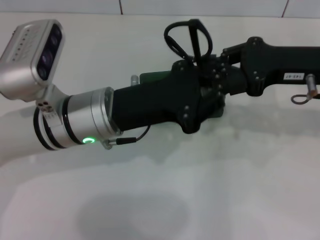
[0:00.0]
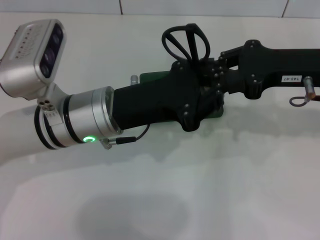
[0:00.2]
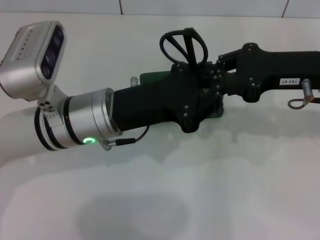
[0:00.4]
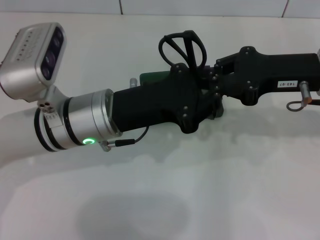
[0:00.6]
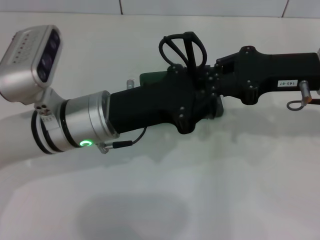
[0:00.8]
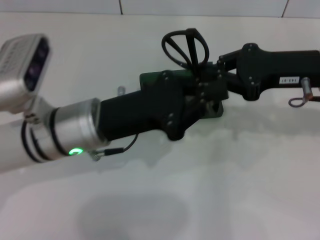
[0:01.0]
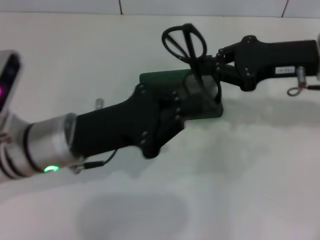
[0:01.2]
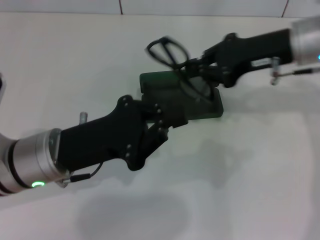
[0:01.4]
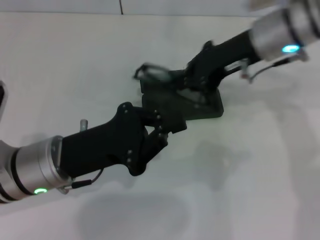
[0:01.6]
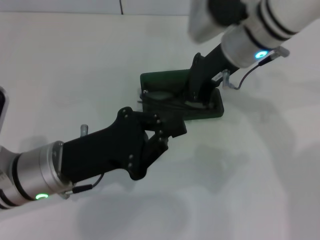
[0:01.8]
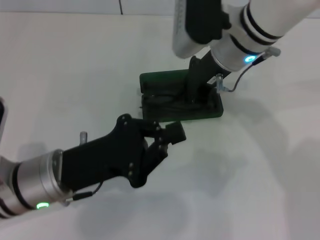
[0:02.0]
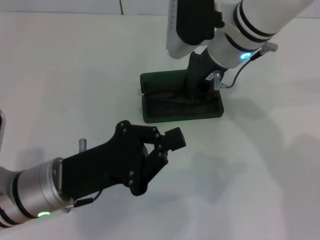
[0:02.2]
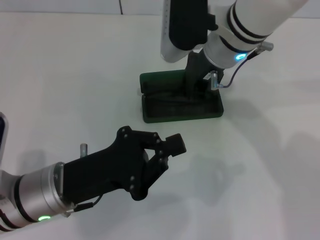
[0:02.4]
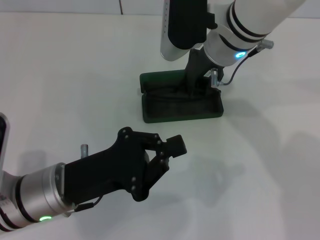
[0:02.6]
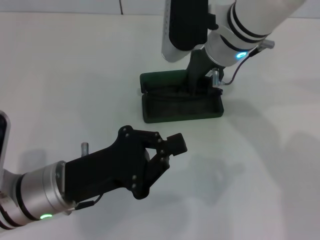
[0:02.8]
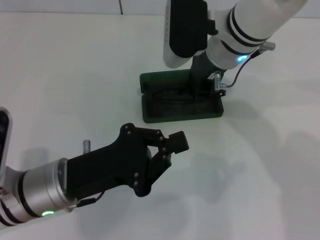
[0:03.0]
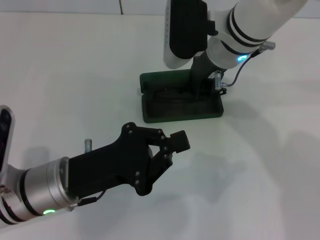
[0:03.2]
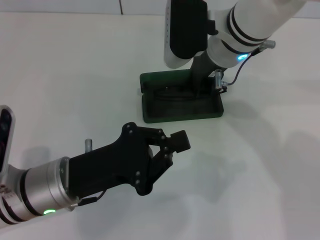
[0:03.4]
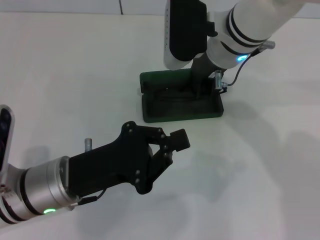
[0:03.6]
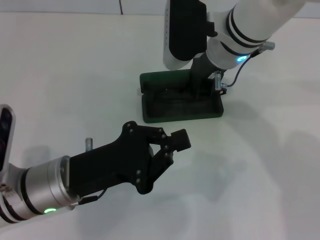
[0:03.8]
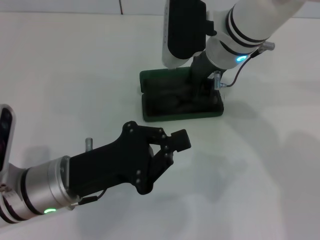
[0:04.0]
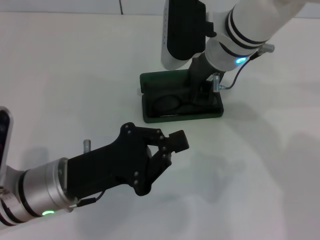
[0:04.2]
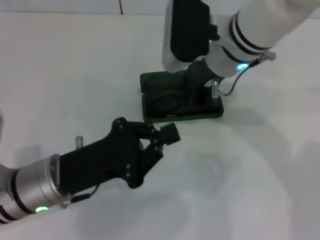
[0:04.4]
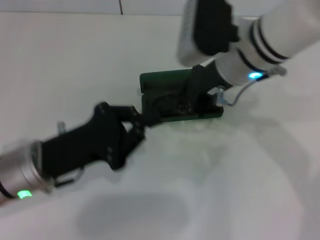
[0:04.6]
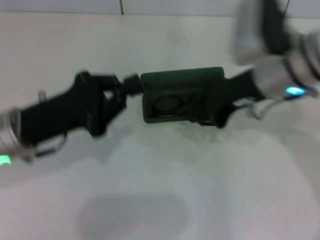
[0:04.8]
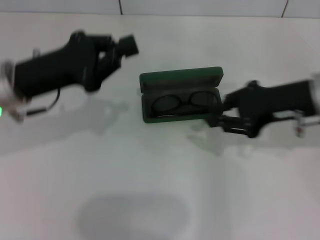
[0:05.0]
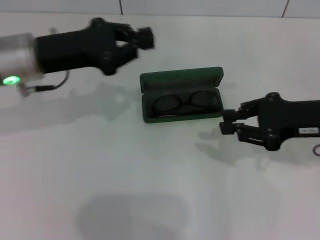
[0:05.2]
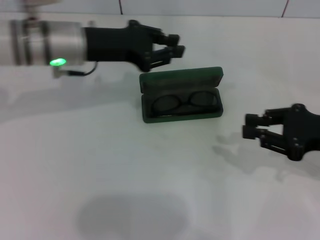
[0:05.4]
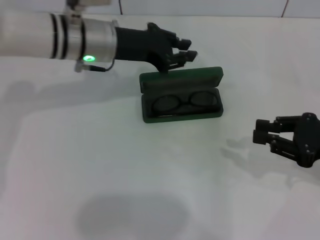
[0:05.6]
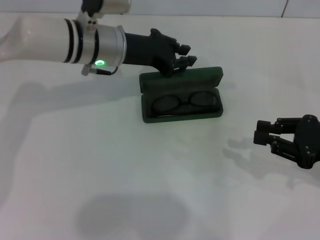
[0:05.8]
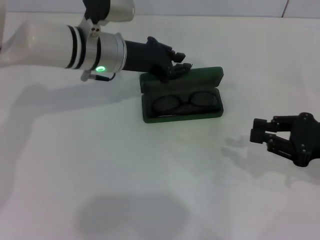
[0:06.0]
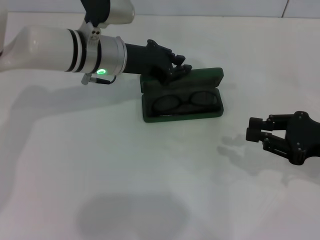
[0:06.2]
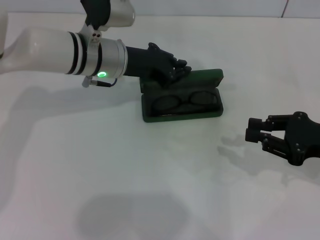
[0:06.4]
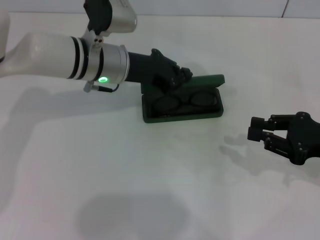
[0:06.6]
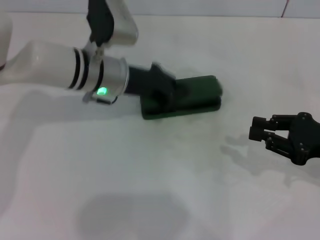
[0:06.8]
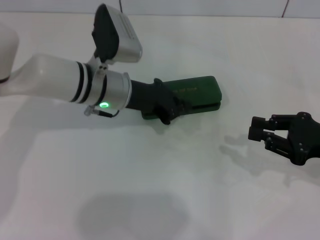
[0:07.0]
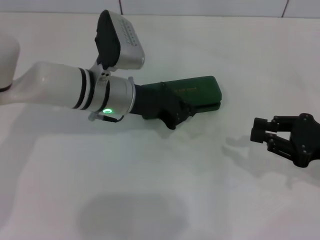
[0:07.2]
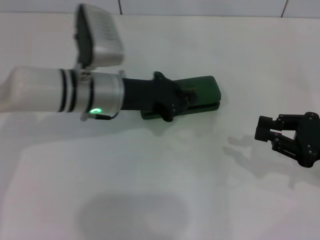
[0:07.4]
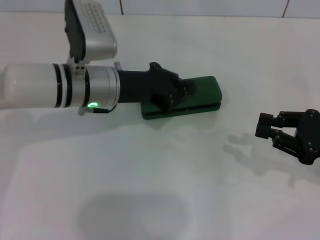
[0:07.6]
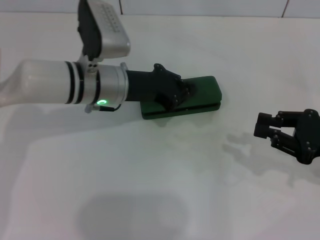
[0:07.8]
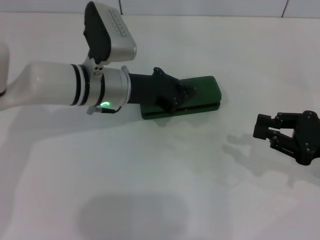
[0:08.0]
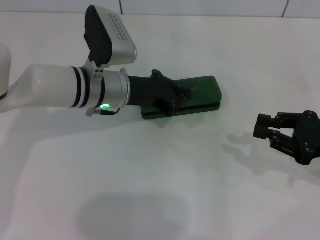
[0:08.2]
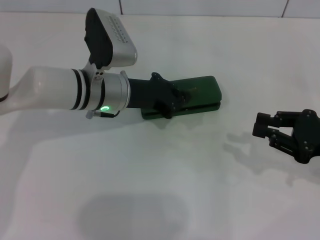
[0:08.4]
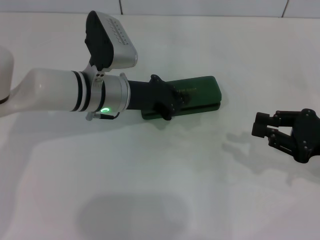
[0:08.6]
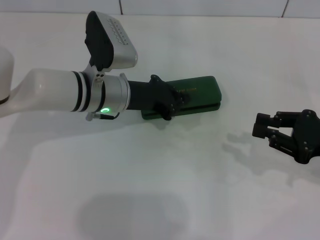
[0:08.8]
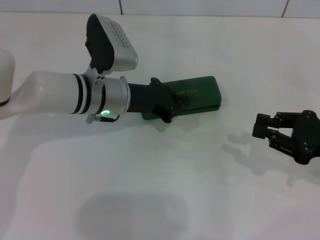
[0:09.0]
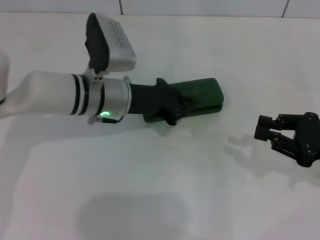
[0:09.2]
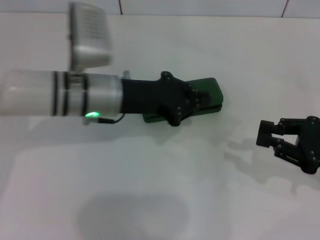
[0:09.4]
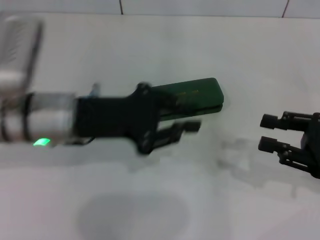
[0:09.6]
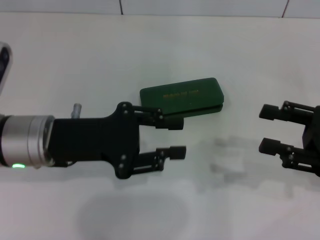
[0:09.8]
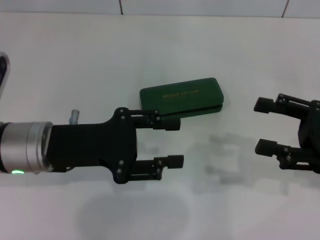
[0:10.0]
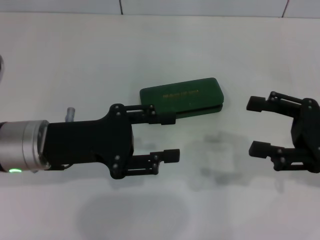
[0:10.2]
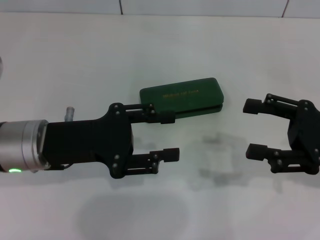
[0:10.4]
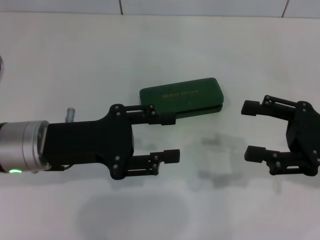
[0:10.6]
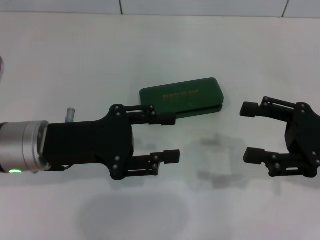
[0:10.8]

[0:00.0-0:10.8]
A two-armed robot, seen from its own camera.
Step, 0:01.0 to 0:04.2: Put the glasses into the case with your right hand.
Step, 0:04.4 to 0:09.0: Close the glasses case with your left hand.
0:00.0 to 0:01.6: The right gripper heads to the left and forward, covering roughly 10 cm, while the left gripper travels to the left by some 5 cm.
0:01.6 to 0:03.0: The right gripper is displaced to the left by roughly 5 cm.
0:04.6 to 0:06.2: The right gripper shifts about 25 cm to the right, backward and downward, while the left gripper goes roughly 20 cm forward and to the right.
0:06.2 to 0:09.2: The grippers move only a little.
0:09.2 to 0:10.8: The left gripper moves backward and to the left, about 15 cm, and opens. The right gripper opens.
